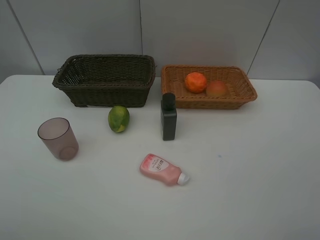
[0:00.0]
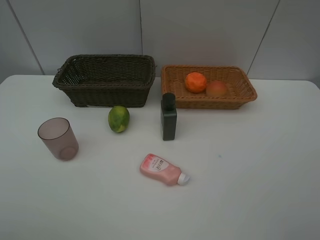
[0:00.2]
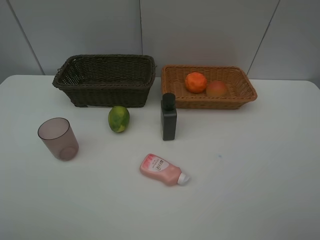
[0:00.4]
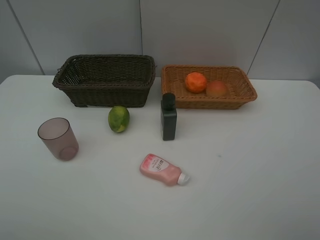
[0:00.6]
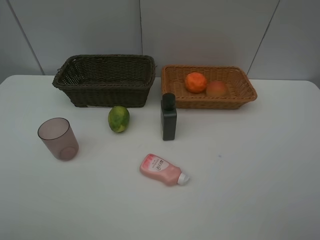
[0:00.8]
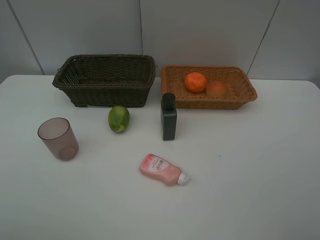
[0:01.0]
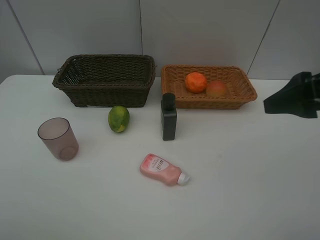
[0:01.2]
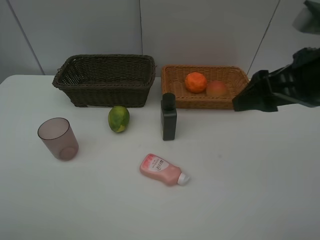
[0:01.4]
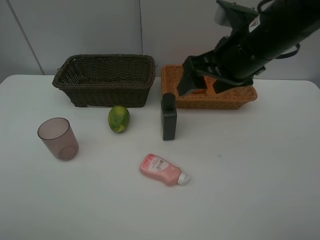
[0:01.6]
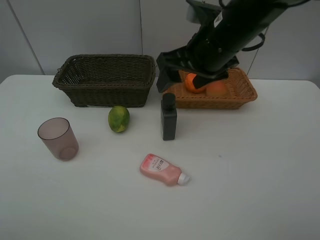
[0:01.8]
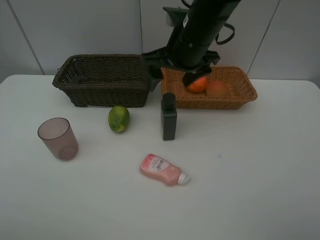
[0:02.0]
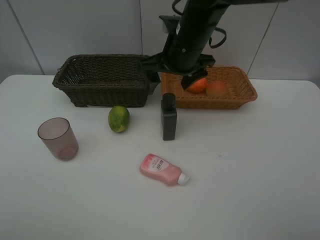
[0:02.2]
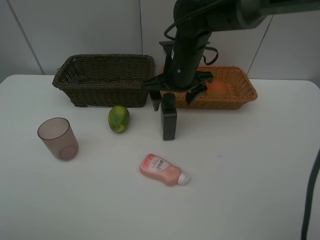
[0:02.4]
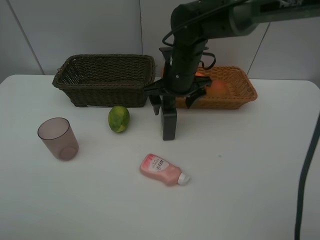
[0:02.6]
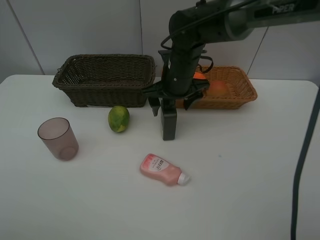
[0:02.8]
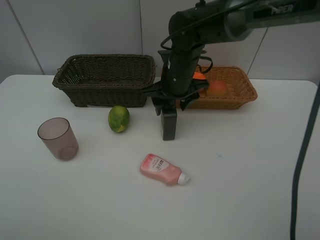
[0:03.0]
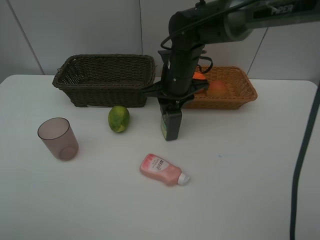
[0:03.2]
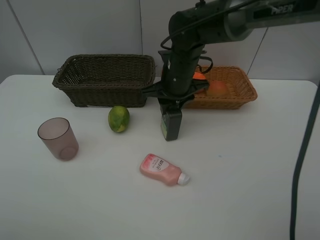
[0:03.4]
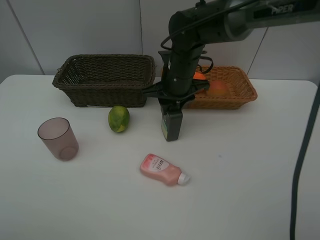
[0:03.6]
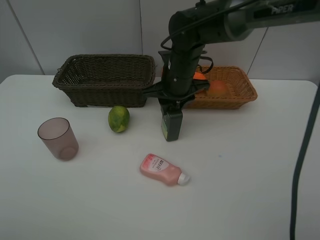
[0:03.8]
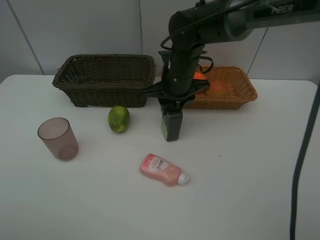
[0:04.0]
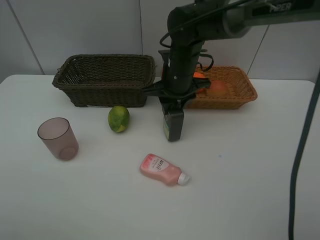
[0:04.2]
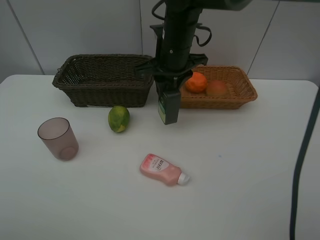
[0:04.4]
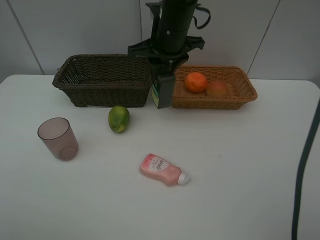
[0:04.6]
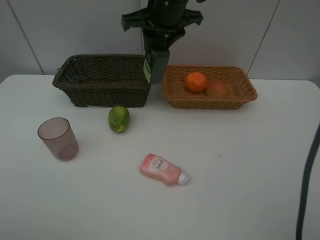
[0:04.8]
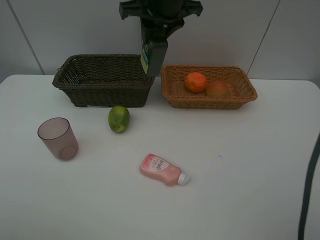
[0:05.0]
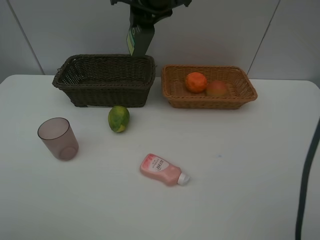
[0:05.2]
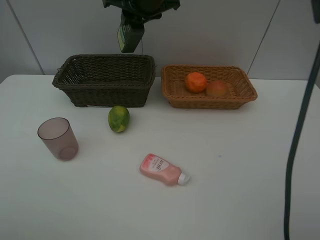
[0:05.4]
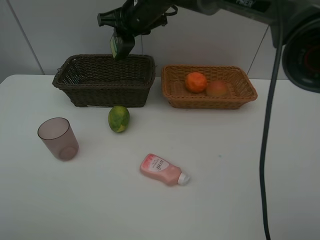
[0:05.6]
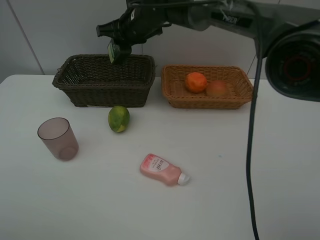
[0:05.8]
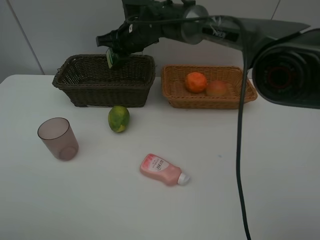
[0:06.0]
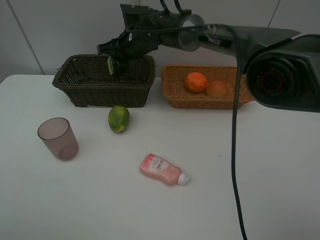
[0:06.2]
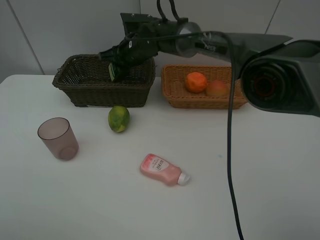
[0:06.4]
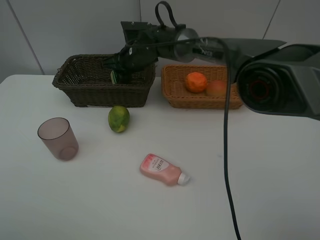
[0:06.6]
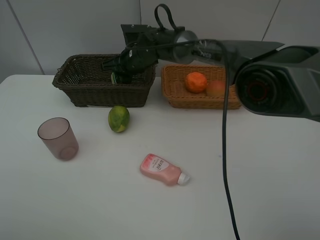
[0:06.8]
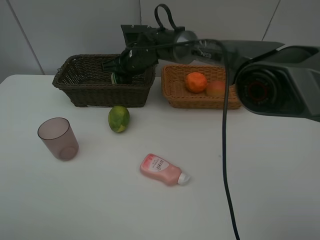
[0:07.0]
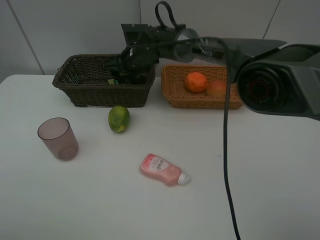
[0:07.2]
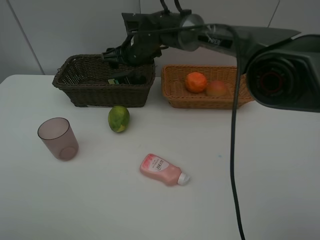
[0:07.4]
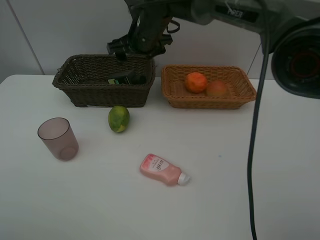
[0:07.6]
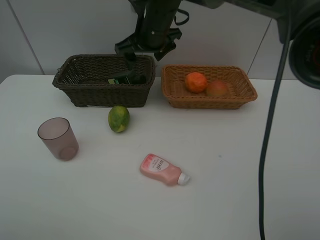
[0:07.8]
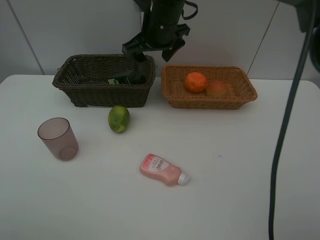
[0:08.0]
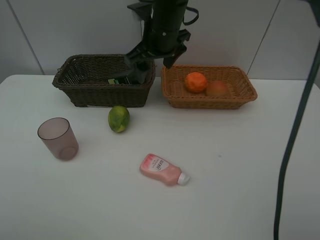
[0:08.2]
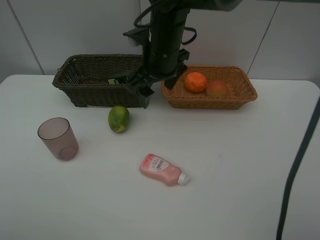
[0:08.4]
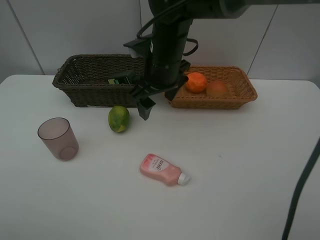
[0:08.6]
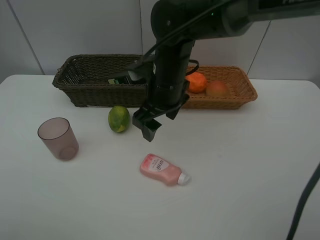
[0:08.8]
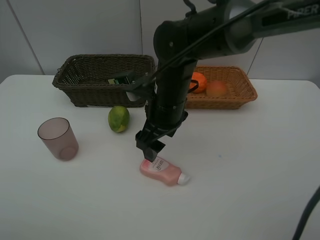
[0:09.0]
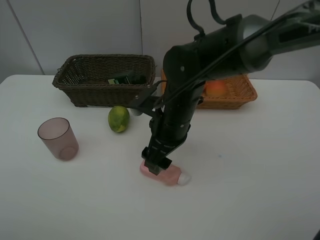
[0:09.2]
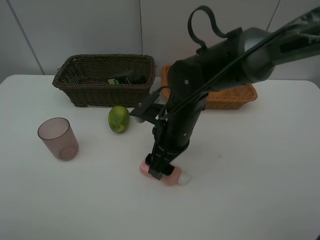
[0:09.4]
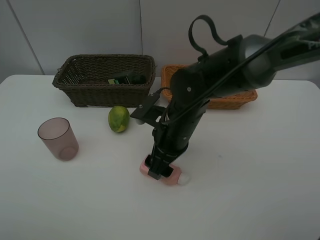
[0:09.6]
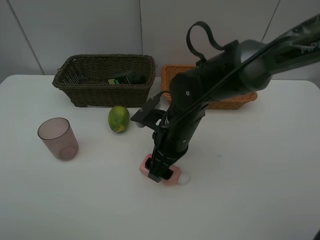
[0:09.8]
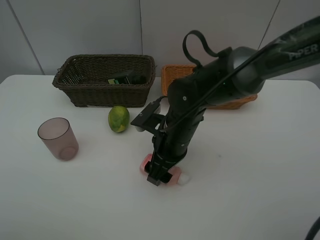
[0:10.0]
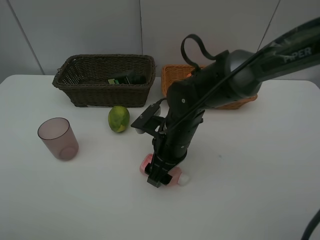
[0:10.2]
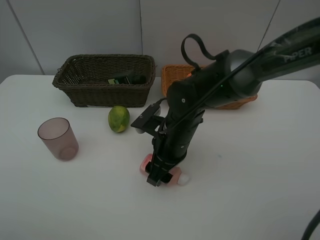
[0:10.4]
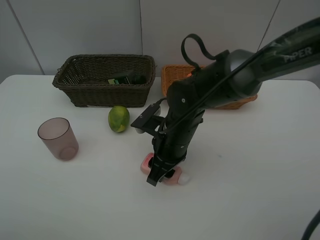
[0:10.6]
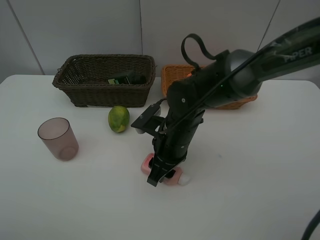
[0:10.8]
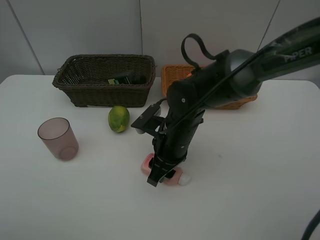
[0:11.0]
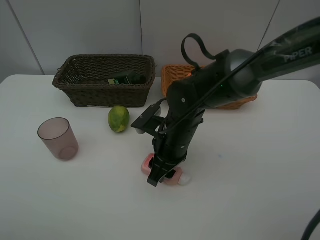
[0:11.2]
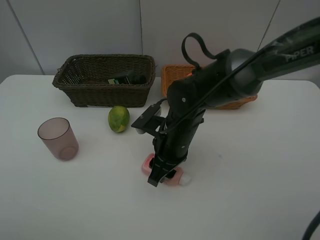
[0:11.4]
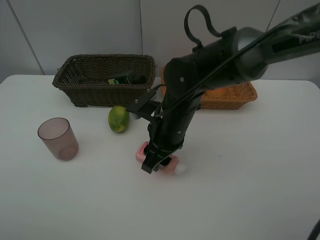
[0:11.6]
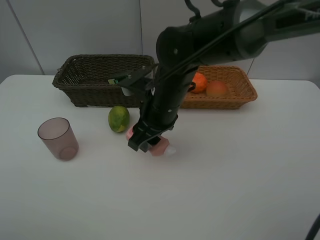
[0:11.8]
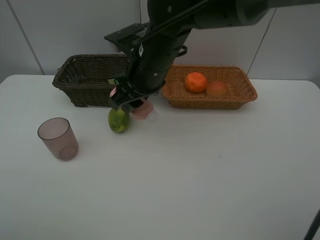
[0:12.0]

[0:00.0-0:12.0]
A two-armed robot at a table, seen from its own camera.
Task of the whole recording: place multiple objects separately in different baskets.
0:00.0 to 0:01.6: The right gripper goes some 20 cm to the left and forward.
0:01.6 to 0:03.0: The right gripper is displaced downward, forward and to the left by about 15 cm, and closes its fingers.
0:03.0 to 0:04.4: The right gripper goes about 5 cm upward.
0:04.4 to 0:06.0: The right gripper travels forward and to the left by about 10 cm, and travels upward and back again, roughly 10 cm each way.
0:06.0 to 0:07.6: The right gripper changes place by some 5 cm, and opens its fingers.
0:07.6 to 0:09.0: The right gripper moves backward and downward, about 15 cm.
0:09.0 to 0:10.4: The right gripper heads downward, covering some 5 cm.
0:10.4 to 0:12.0: The right gripper moves upward and forward, approximately 15 cm.

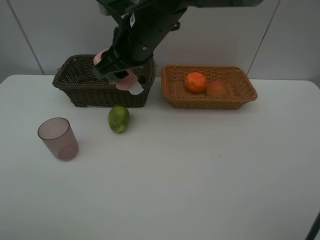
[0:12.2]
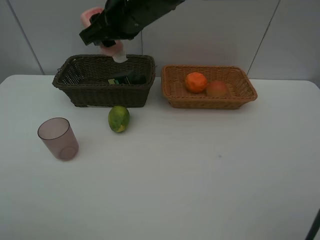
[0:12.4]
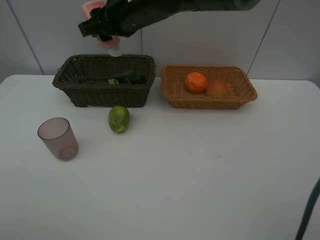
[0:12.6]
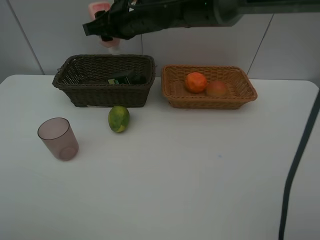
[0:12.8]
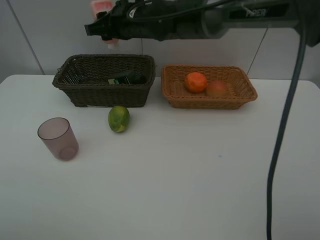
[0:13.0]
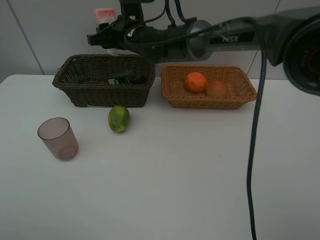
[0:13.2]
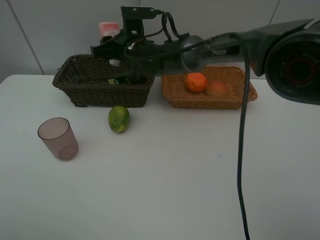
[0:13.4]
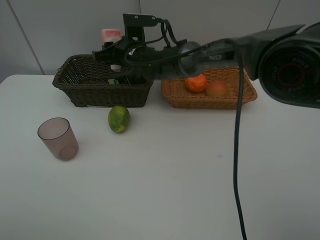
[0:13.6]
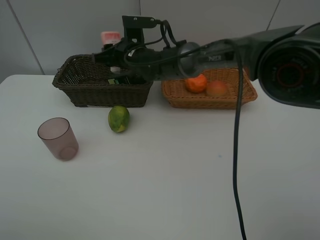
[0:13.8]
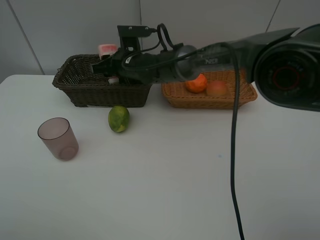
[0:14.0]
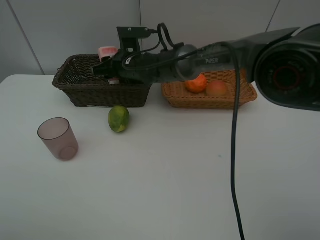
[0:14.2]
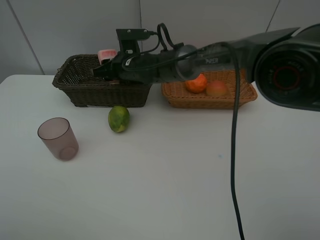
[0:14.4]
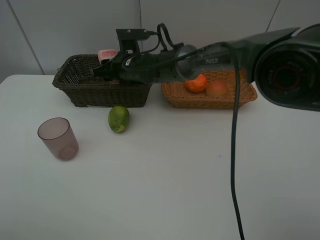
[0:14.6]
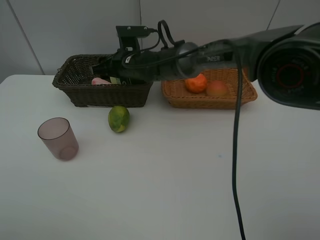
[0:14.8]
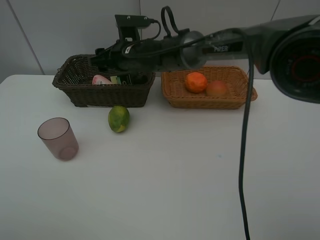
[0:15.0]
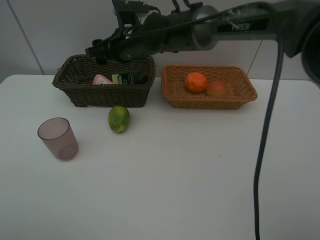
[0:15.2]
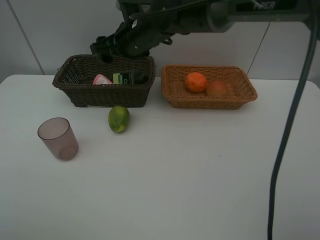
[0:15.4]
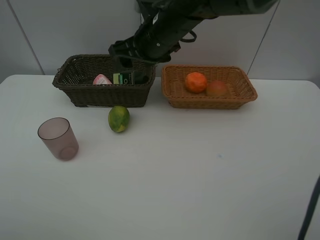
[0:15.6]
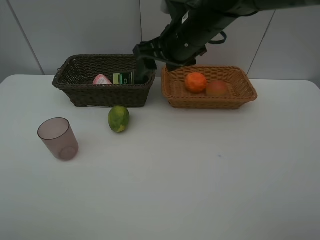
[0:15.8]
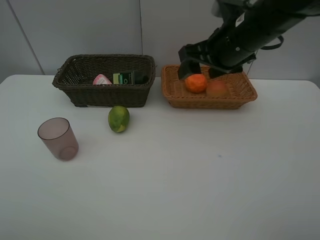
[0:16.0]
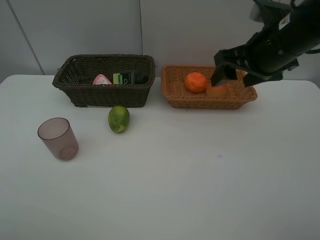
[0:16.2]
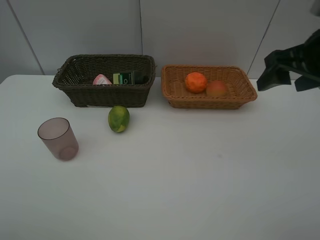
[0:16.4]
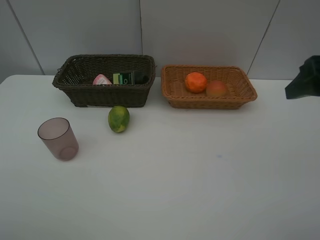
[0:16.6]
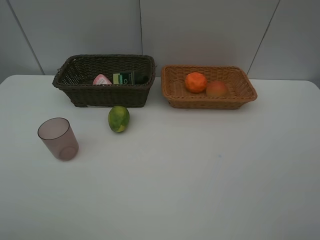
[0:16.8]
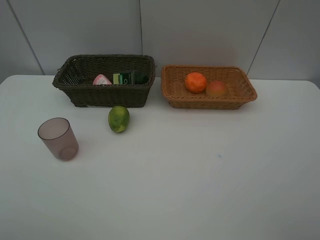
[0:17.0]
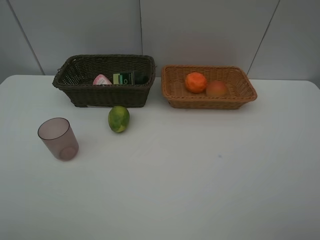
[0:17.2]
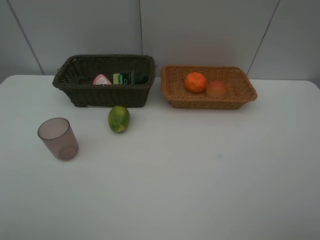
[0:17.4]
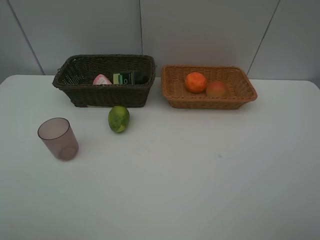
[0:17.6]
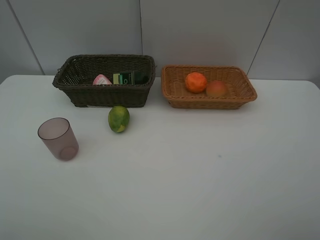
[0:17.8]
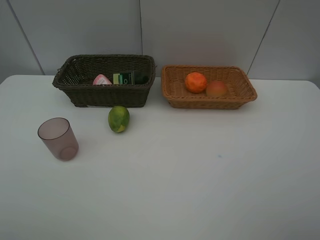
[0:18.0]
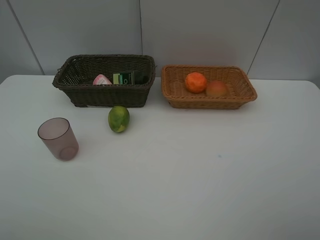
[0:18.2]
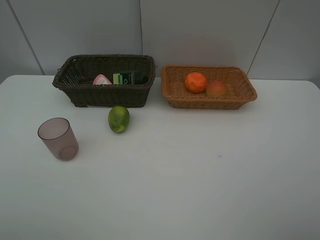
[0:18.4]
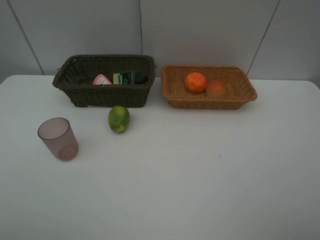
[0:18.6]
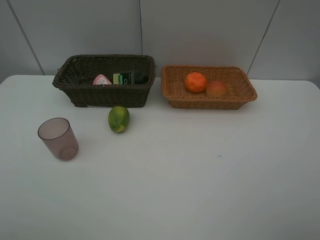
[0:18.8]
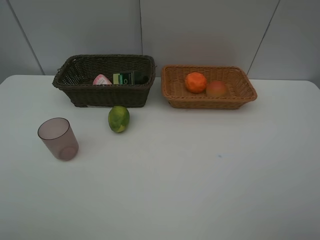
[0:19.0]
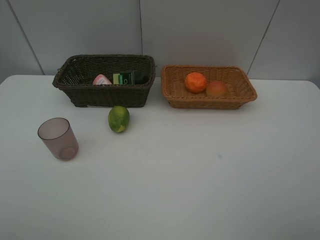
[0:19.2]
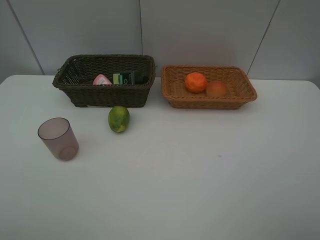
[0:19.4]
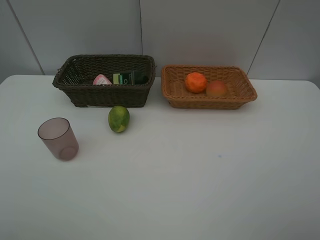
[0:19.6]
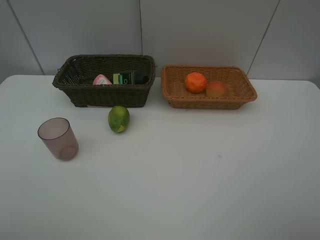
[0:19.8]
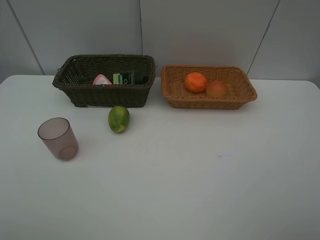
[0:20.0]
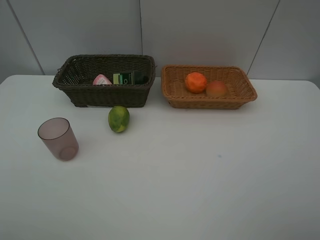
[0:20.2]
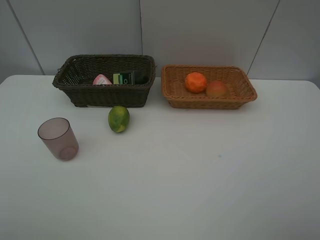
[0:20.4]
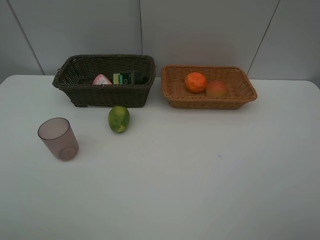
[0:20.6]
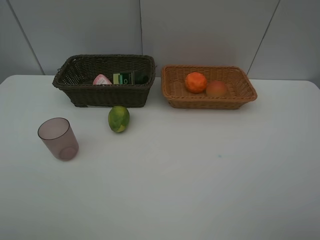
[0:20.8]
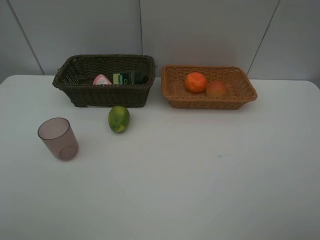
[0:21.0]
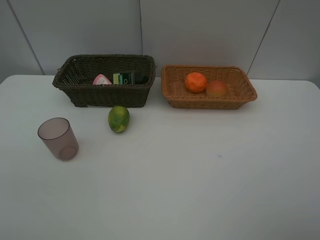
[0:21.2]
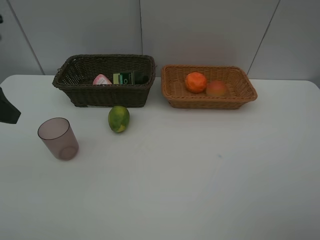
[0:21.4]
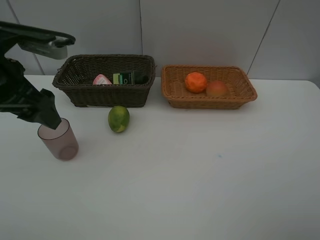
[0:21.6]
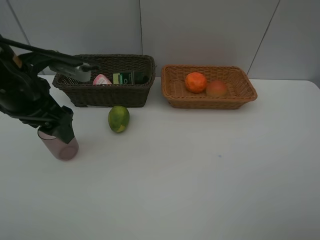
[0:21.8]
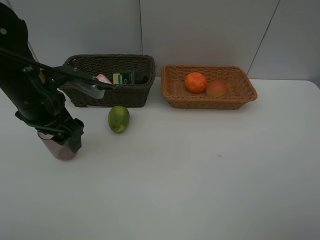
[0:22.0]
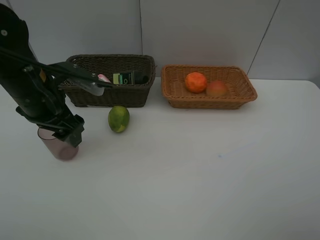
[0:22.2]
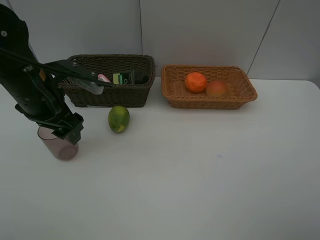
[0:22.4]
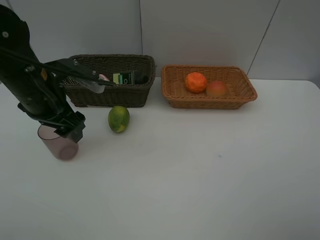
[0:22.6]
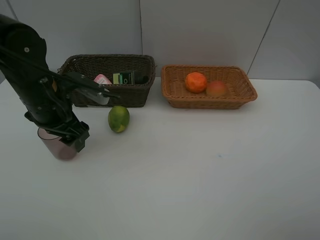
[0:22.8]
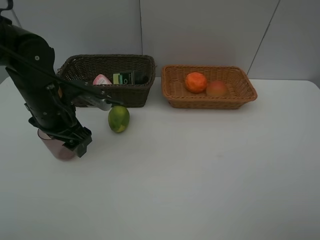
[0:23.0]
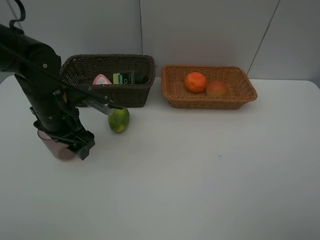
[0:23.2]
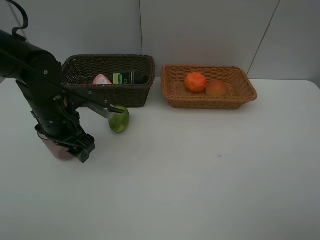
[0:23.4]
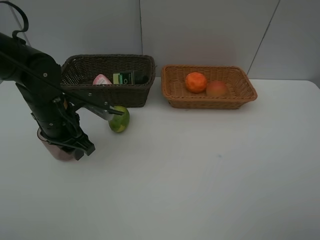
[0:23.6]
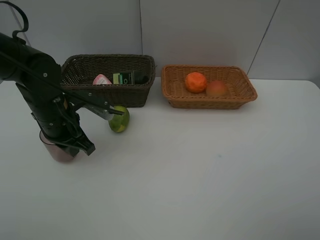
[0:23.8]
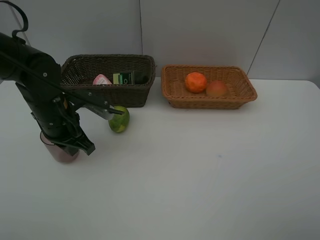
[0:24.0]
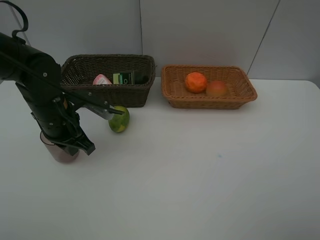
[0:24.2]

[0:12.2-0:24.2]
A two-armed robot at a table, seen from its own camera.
Task of the whole recording: place multiple objects separately in different baskets.
0:12.2 to 0:13.8: The right gripper travels downward and forward by about 15 cm.
0:13.8 to 0:15.2: The right gripper travels upward by roughly 5 cm, and opens its fingers.
0:15.2 to 0:16.6: The right gripper is displaced to the right and backward by roughly 40 cm.
0:16.6 to 0:18.2: The right gripper moves backward, about 15 cm.
0:21.2 to 0:22.6: The left gripper heads forward, to the right and downward, covering approximately 20 cm.
0:22.6 to 0:24.2: The left gripper moves downward, approximately 5 cm, and closes its fingers.
